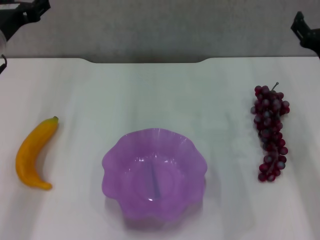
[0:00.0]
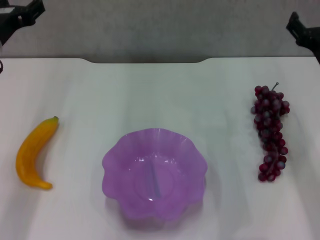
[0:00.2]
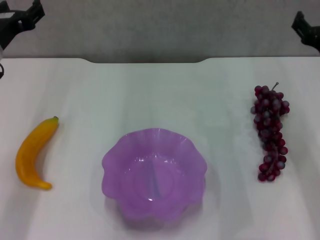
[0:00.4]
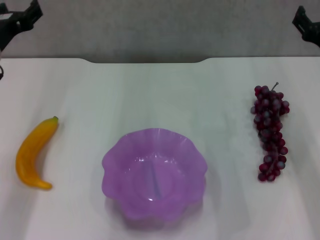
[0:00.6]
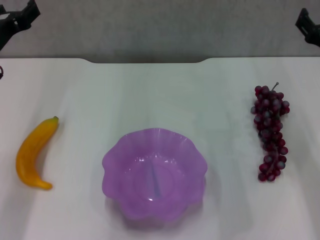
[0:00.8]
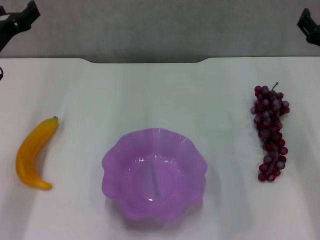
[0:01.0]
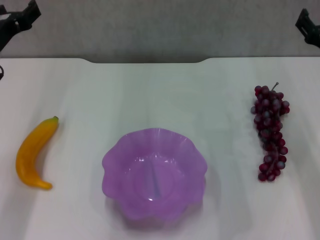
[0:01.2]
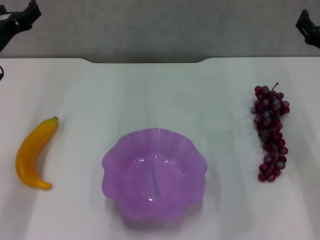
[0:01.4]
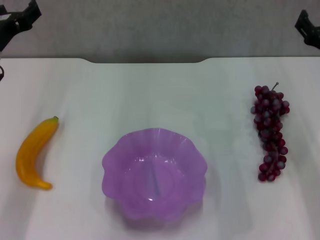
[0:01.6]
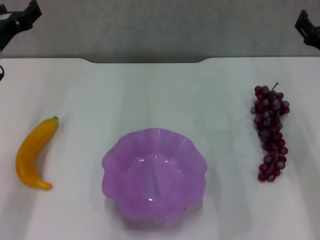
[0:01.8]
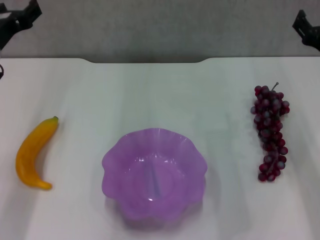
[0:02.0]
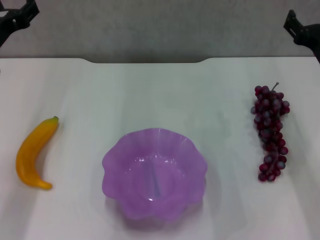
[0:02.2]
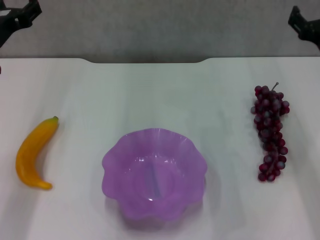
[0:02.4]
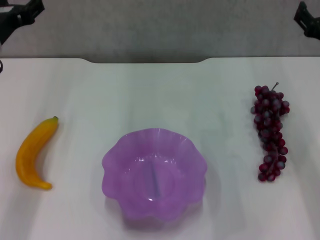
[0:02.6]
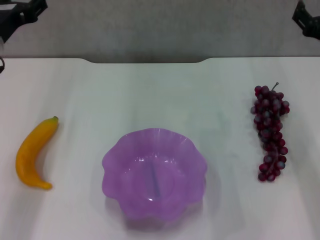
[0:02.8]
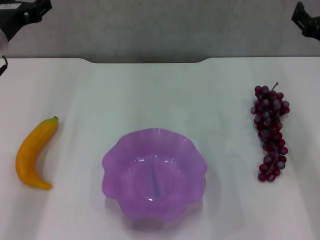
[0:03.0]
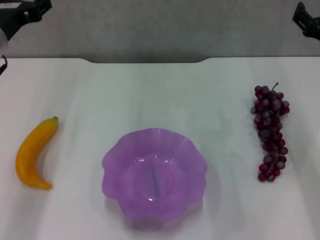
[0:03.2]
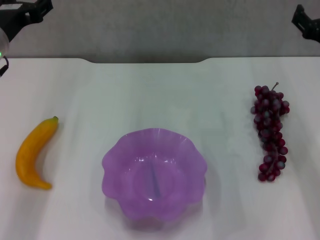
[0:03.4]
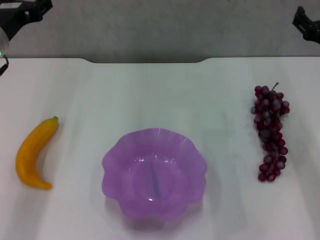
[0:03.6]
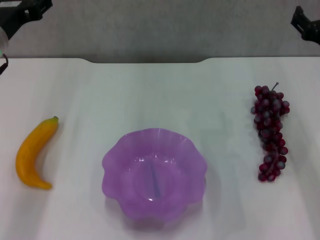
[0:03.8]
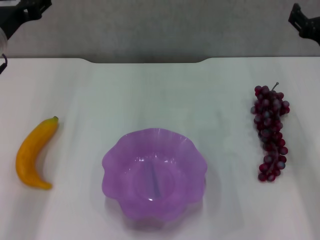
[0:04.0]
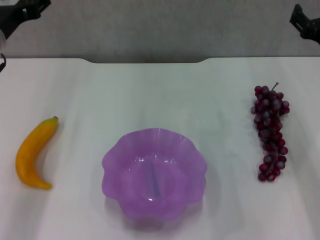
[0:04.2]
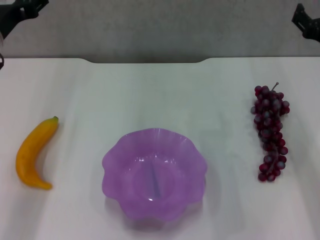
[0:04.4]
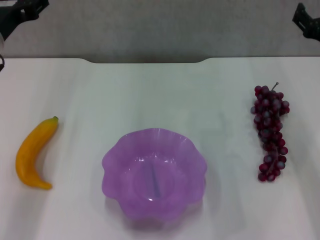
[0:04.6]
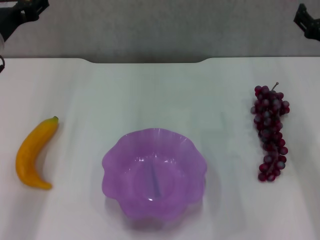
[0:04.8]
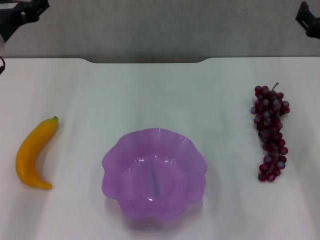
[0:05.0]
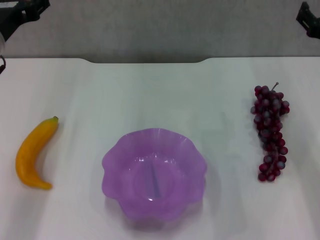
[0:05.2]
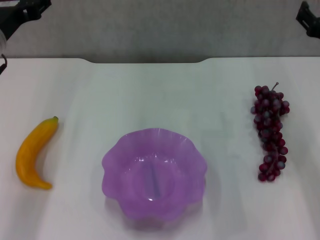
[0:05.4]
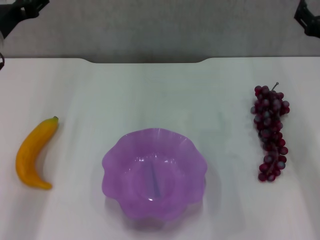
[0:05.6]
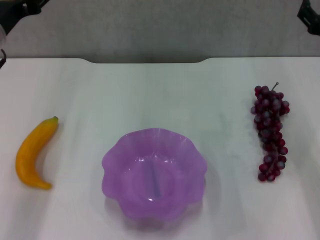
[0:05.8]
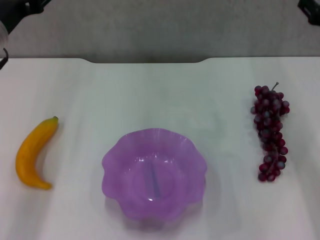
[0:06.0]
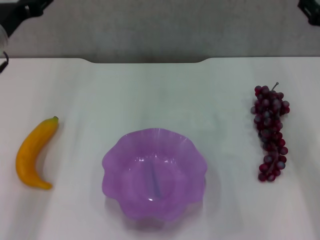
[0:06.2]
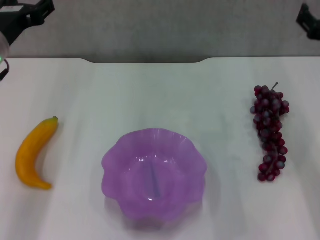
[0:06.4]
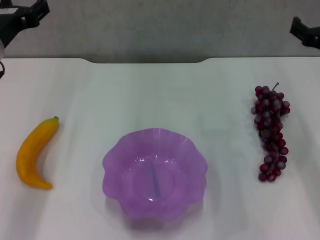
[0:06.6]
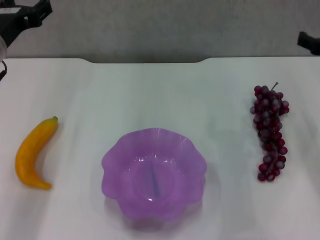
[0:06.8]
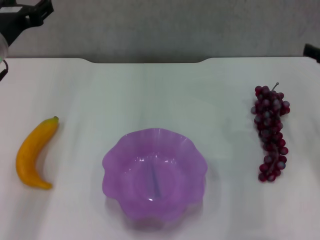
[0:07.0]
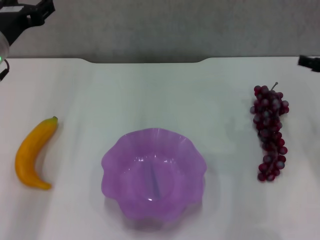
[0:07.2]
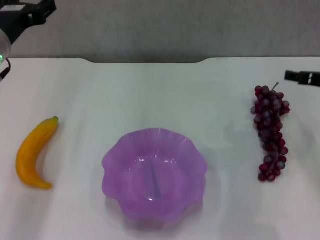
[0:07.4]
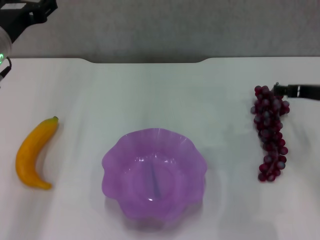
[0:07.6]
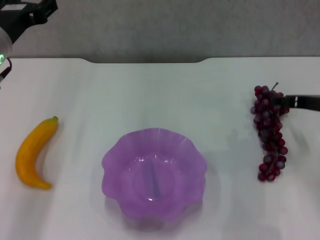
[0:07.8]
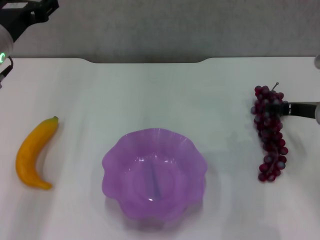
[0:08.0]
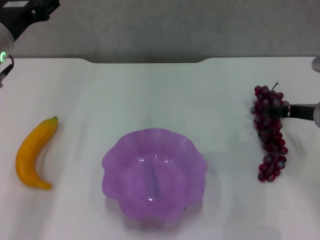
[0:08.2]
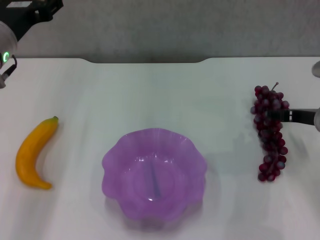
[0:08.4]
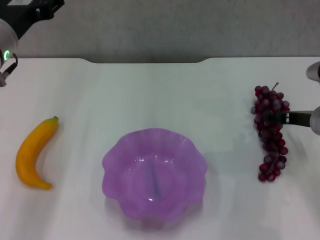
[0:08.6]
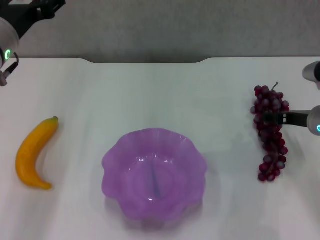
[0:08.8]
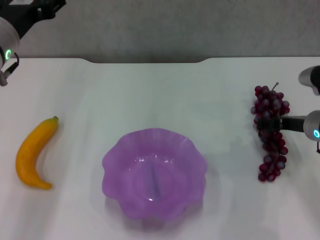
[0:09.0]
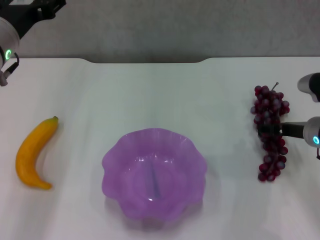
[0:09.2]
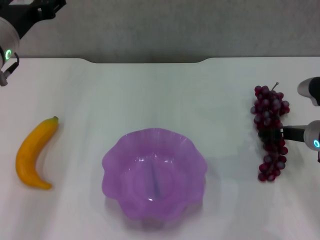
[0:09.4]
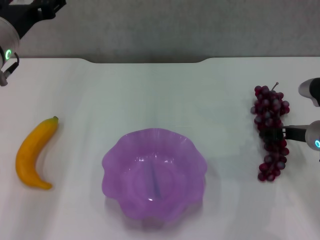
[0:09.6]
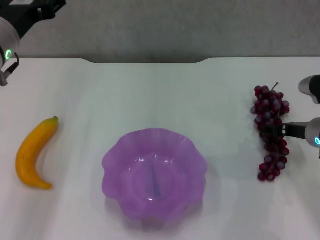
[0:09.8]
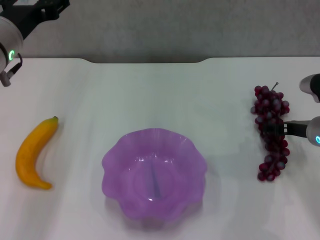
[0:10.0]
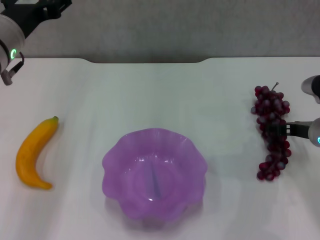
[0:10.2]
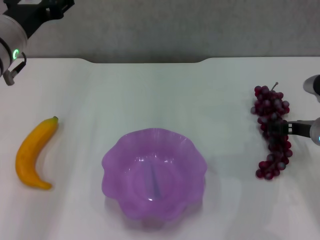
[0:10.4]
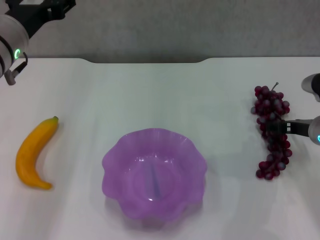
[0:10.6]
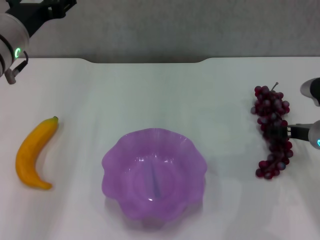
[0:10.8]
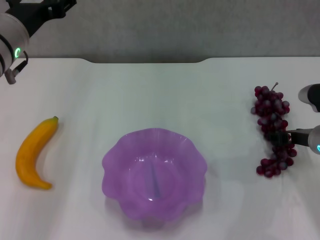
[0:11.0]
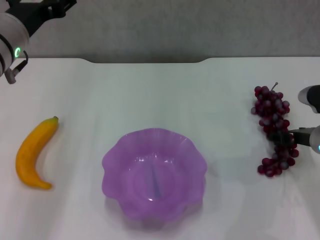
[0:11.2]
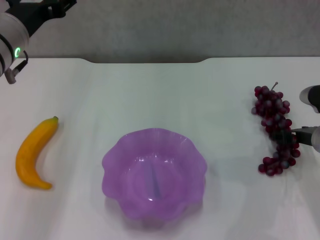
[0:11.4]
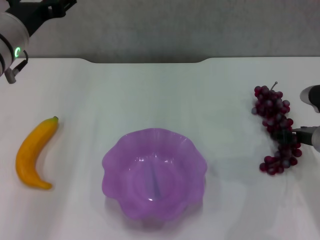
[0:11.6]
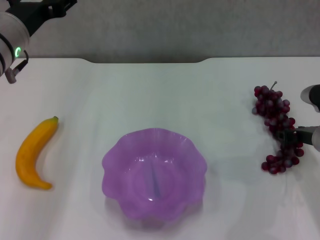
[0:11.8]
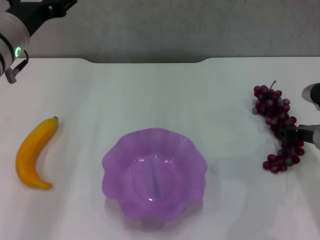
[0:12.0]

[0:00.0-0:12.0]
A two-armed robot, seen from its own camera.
0:00.0 to 0:03.0: The grippers move only a little.
0:03.0 to 0:04.4: Both grippers stay put.
0:04.4 to 0:06.0: The grippers stay close to where they were, moving slightly.
0:06.0 to 0:07.6: The right gripper shifts some 5 cm downward.
0:07.6 to 0:09.0: The right gripper moves downward, roughly 5 cm.
0:09.0 to 0:10.4: There are only small adjustments of the grippers.
0:10.4 to 0:12.0: The right gripper closes.

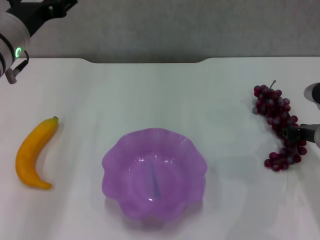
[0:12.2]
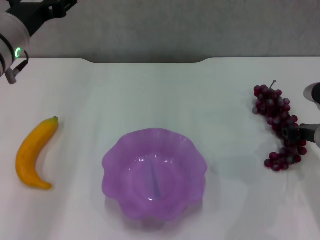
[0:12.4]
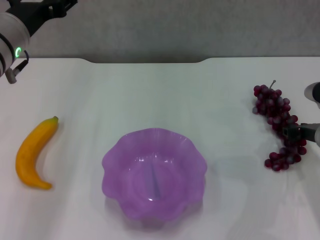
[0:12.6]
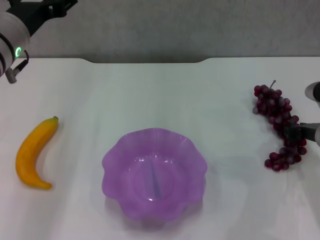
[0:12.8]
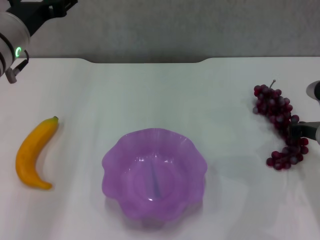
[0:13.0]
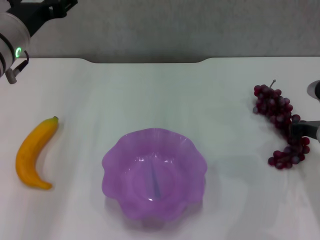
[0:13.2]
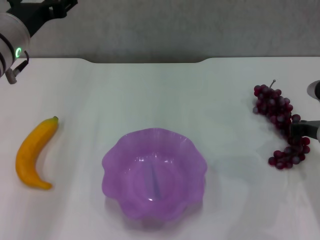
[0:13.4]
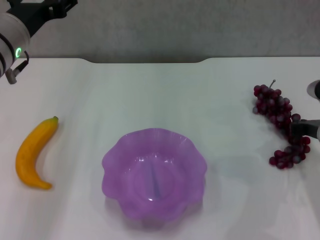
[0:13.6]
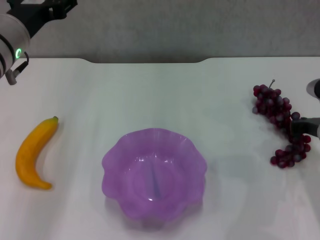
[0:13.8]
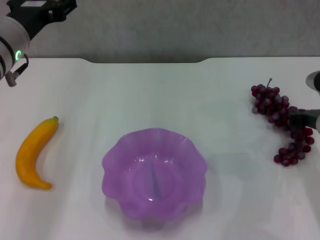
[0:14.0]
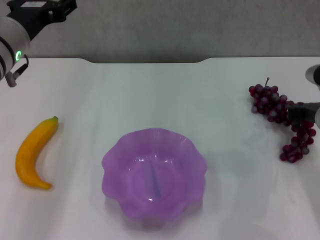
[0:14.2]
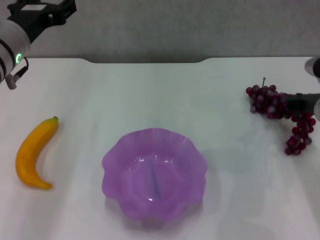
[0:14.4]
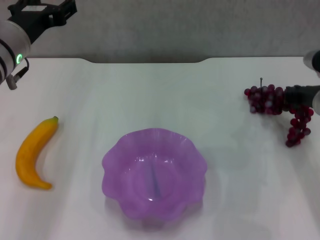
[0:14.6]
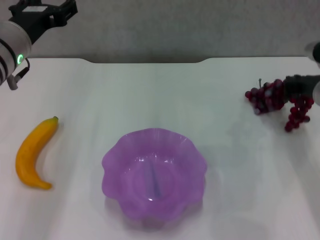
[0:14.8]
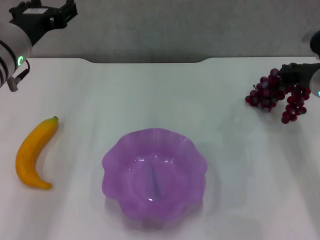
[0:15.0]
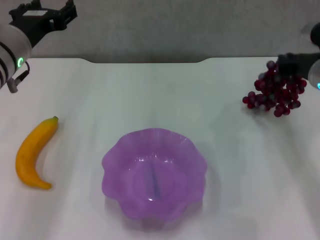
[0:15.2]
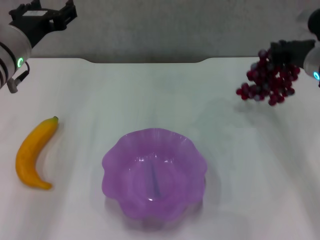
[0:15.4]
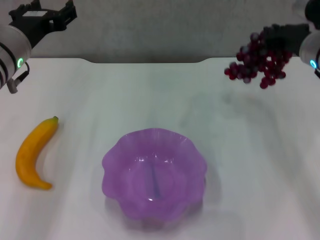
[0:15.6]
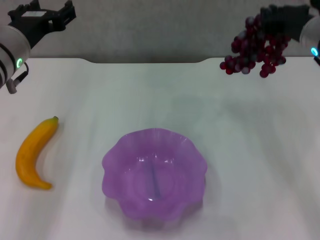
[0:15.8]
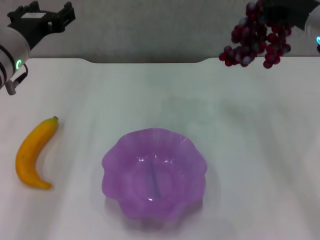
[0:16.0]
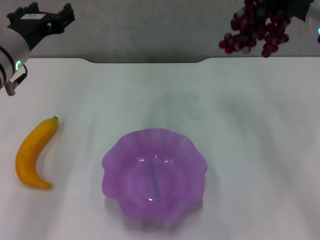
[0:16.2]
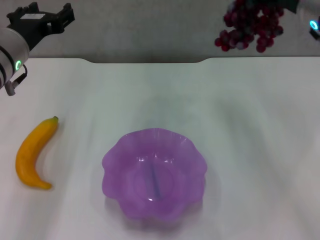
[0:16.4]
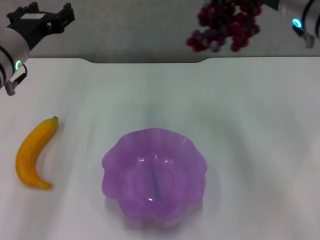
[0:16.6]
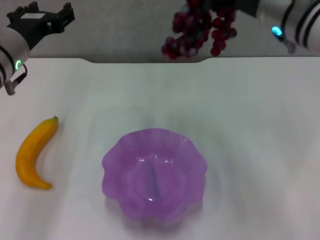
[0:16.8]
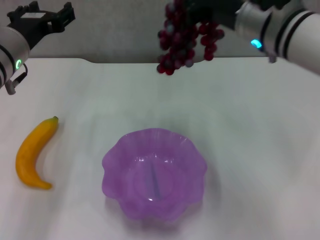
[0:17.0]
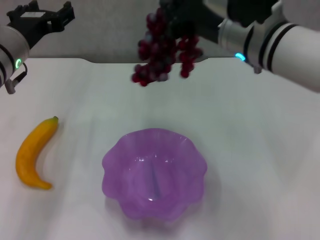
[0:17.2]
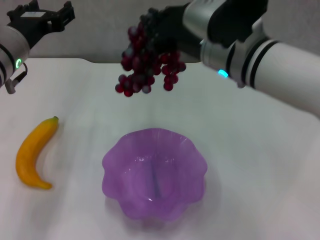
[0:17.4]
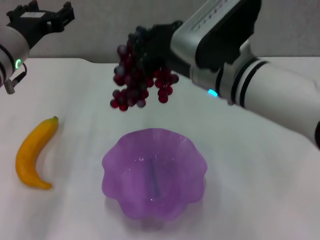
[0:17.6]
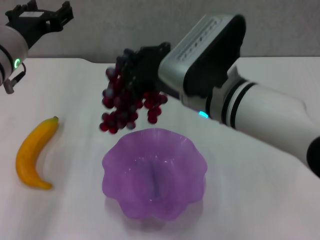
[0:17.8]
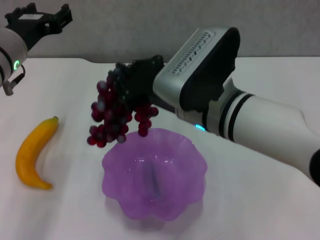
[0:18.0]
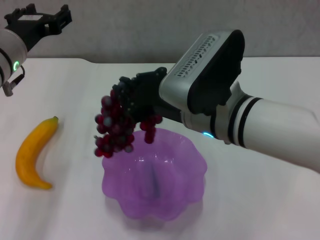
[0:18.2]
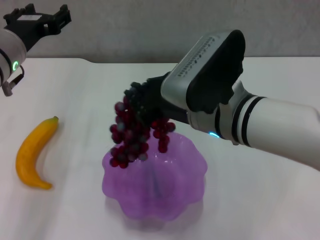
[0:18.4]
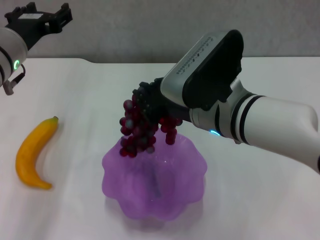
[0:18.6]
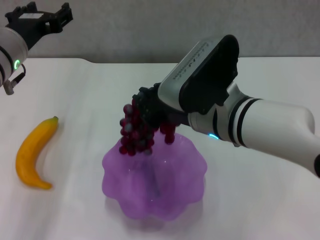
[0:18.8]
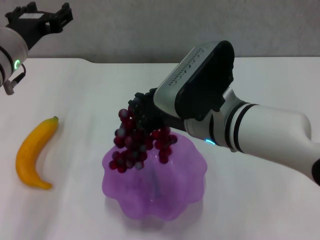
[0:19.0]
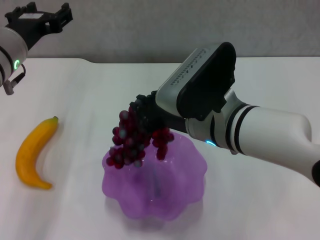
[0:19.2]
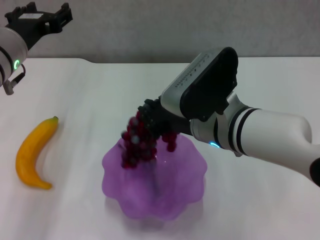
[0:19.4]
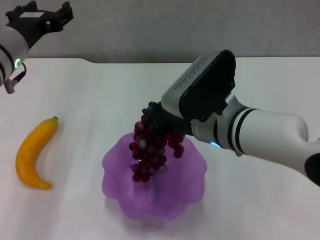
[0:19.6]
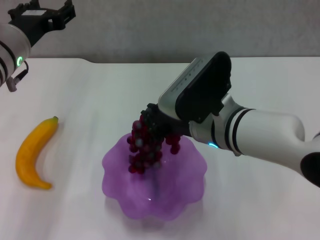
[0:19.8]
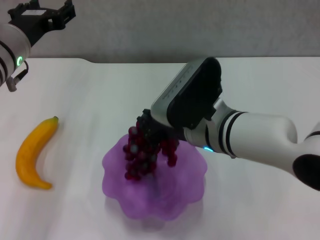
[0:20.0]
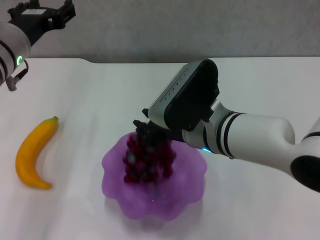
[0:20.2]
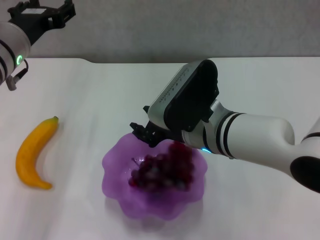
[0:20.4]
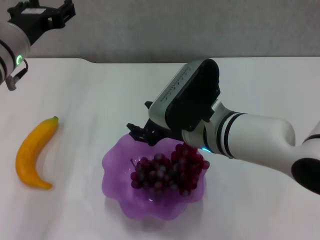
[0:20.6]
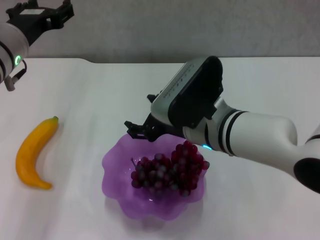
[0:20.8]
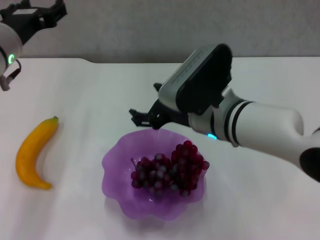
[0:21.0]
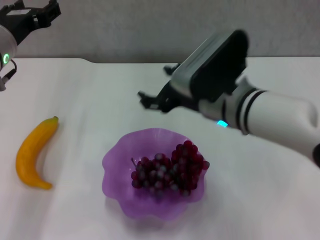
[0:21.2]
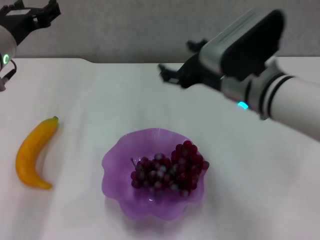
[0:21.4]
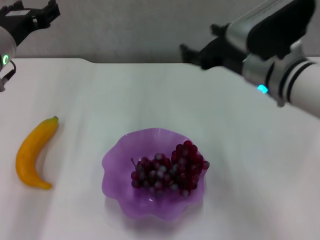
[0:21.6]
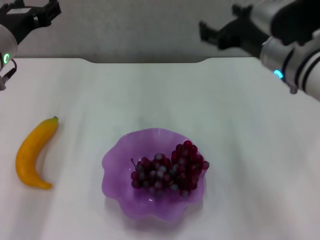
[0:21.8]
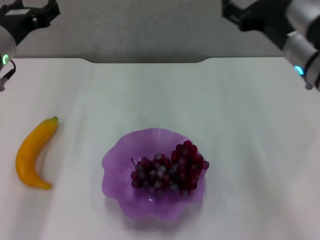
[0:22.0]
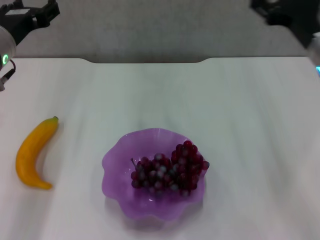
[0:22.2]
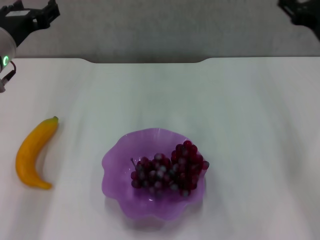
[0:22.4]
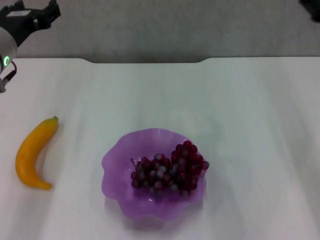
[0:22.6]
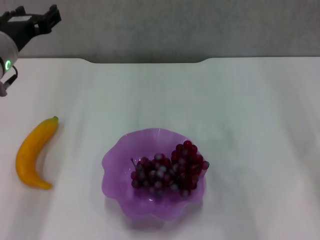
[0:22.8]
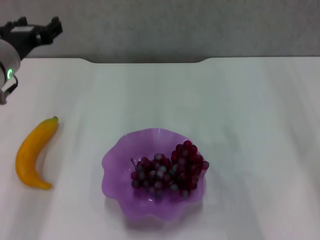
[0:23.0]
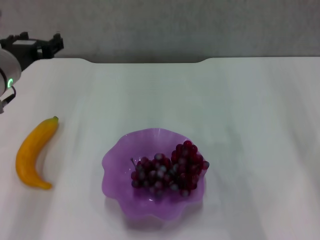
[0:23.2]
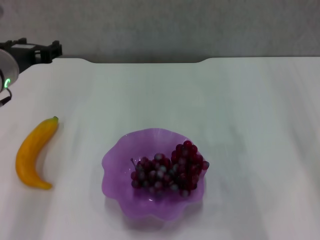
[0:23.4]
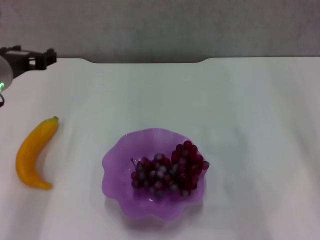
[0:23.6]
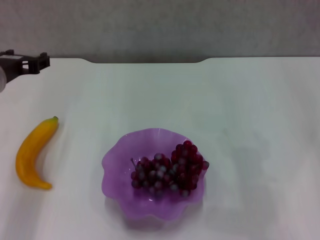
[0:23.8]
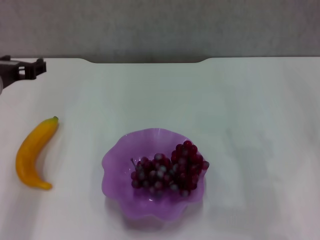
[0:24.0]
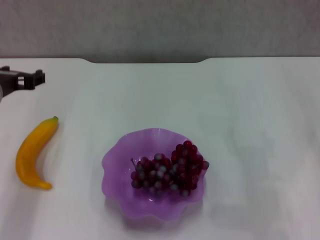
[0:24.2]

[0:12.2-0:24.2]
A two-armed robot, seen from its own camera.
Step, 0:13.8 to 0:20.4: Place the grape in the purple plate with right gripper.
0:12.2 to 0:13.8: The right gripper closes.
0:13.8 to 0:15.2: The right gripper goes some 10 cm upward.
0:15.2 to 0:16.6: The right gripper shifts roughly 15 cm upward and to the left.
0:16.6 to 0:18.2: The right gripper moves to the left, backward and downward, about 15 cm.
0:18.2 to 0:19.8: There are only small adjustments of the grippers.
0:19.8 to 0:21.2: The right gripper opens.
0:21.2 to 0:22.6: The right gripper is displaced to the right by approximately 20 cm.
0:22.6 to 0:24.2: The right gripper heads downward and to the right, covering roughly 10 cm.
